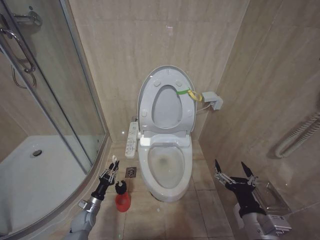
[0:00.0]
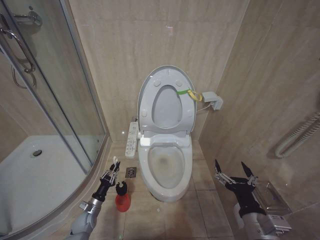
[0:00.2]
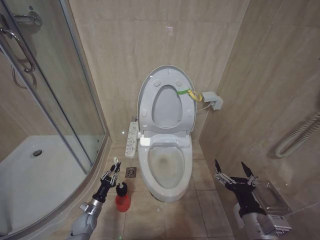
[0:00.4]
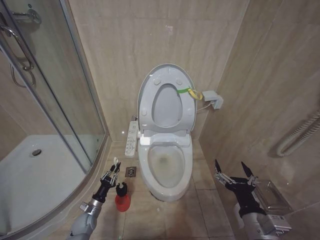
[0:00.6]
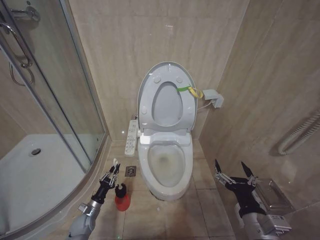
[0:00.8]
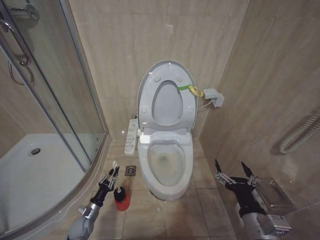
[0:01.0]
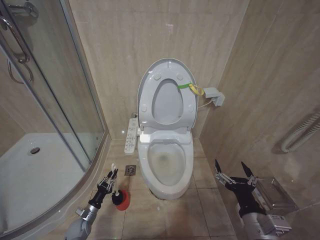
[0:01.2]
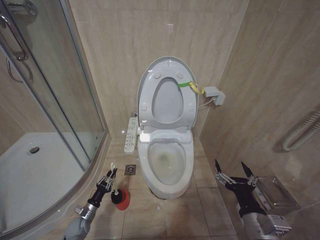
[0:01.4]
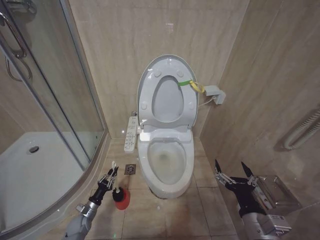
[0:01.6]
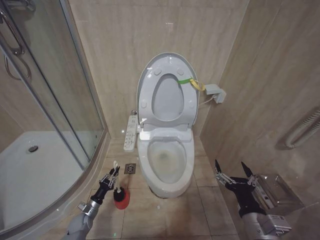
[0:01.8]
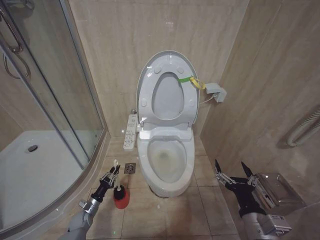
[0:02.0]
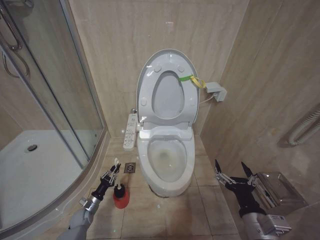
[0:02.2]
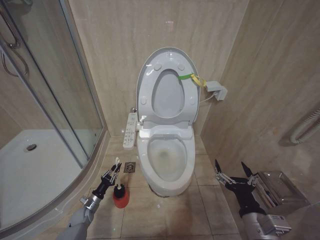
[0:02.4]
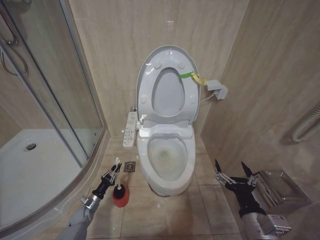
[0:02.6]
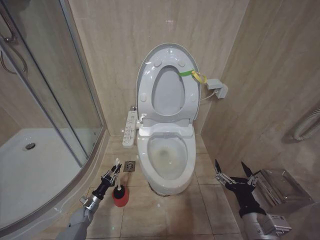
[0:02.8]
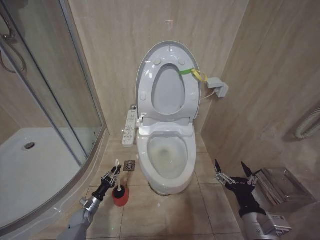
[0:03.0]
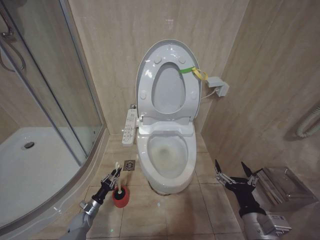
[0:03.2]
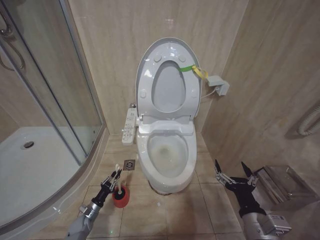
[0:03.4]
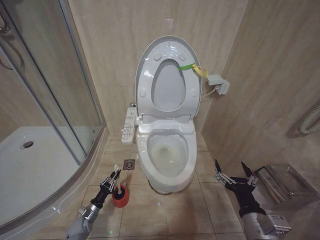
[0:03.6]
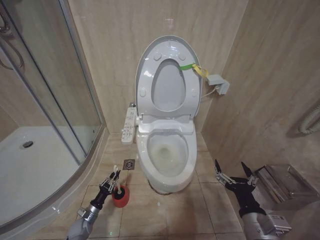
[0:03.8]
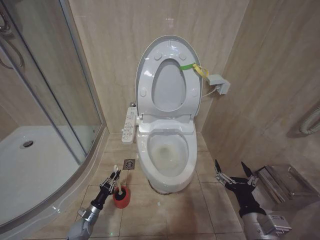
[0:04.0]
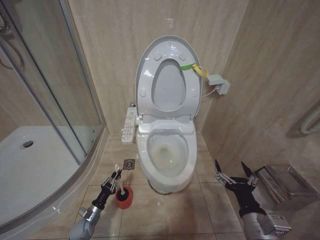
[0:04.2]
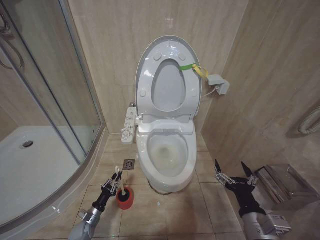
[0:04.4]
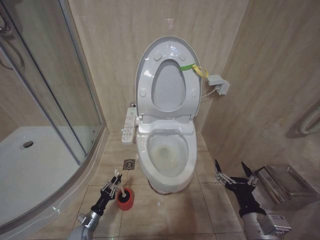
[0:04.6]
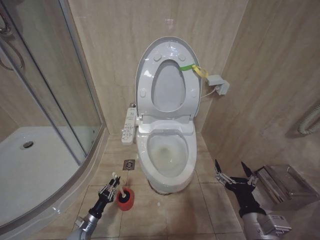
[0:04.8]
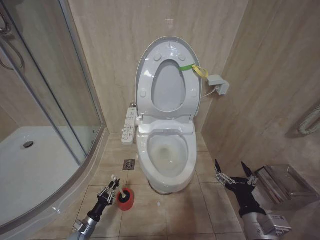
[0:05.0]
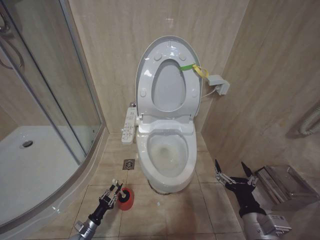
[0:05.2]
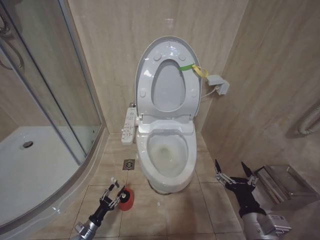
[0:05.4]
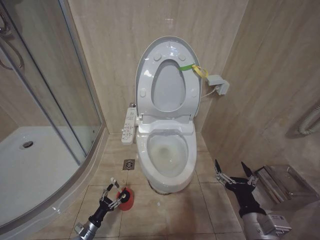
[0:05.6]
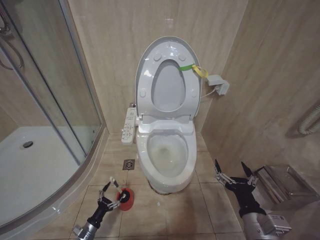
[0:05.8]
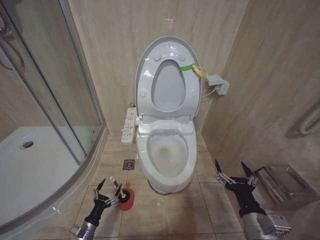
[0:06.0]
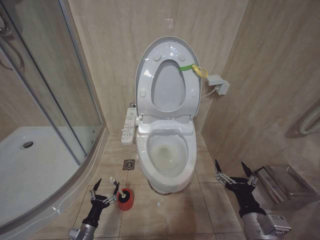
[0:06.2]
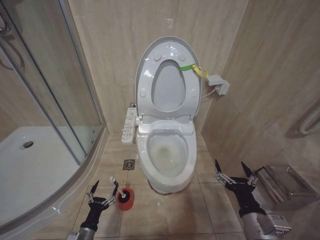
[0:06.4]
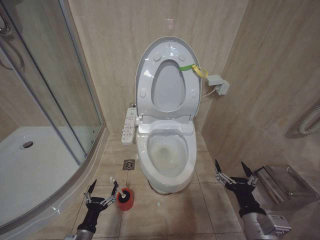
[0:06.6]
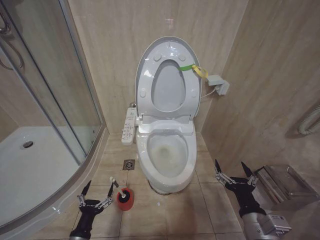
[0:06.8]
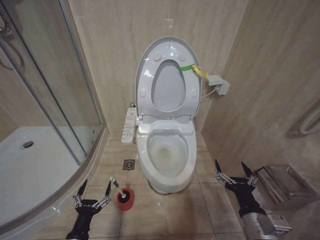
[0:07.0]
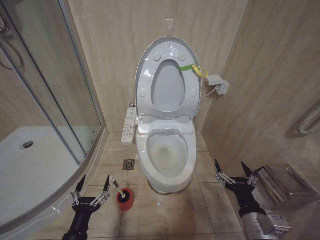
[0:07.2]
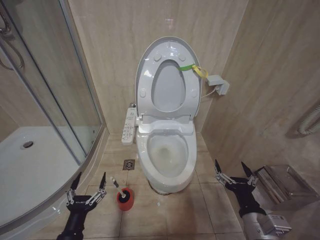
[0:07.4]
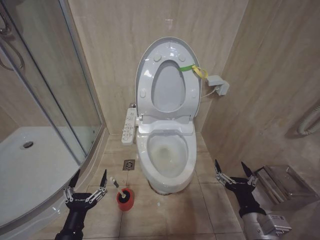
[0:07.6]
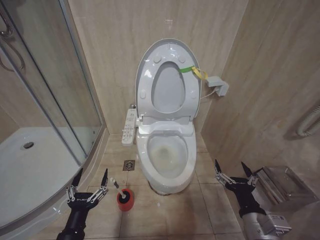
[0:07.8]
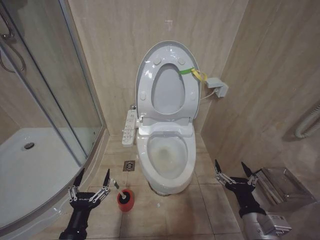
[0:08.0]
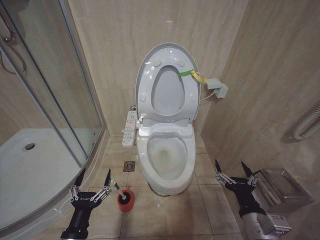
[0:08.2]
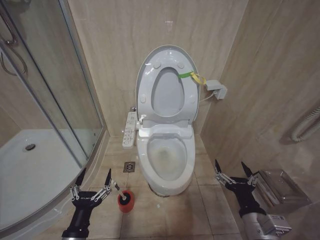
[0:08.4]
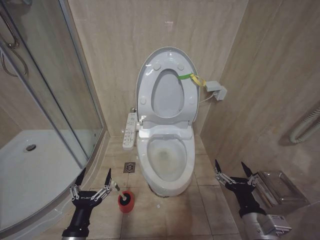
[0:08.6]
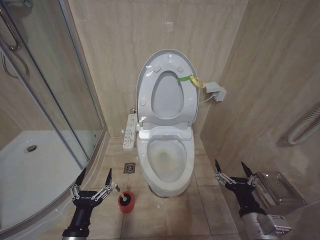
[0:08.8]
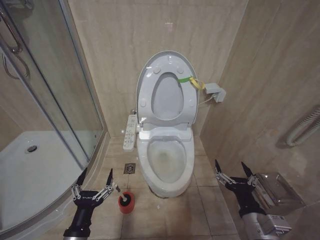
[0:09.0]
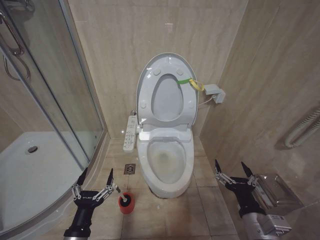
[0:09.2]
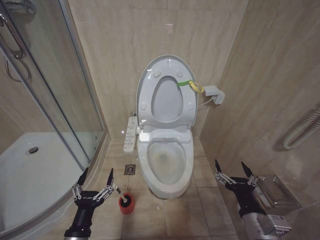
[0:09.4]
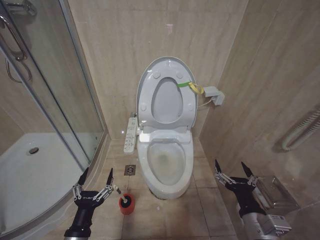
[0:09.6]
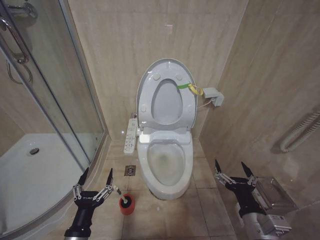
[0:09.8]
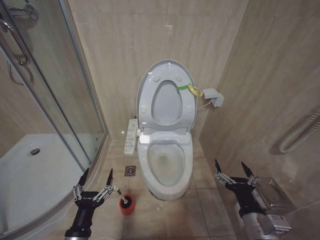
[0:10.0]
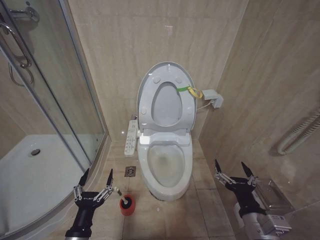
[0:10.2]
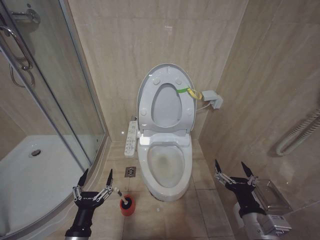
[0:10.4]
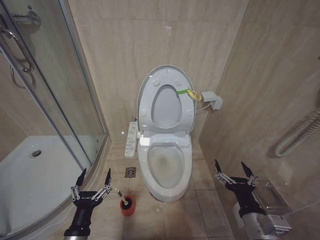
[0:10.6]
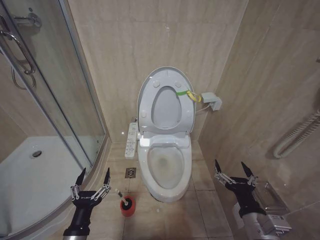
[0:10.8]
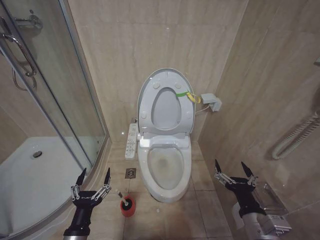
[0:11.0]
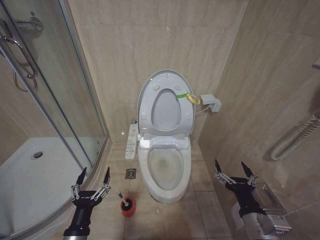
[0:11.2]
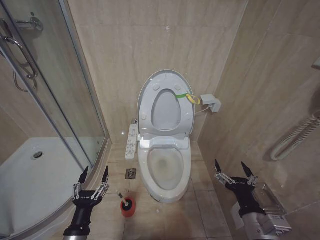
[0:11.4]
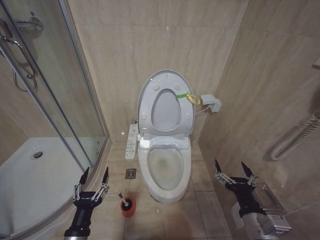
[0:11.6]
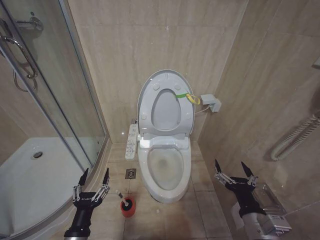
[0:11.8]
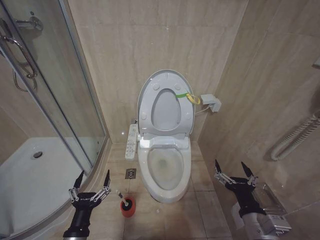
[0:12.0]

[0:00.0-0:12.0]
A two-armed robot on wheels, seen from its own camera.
Task of the whole recording: Open the toilet lid, clean the toilet bowl with a toilet brush, close the toilet lid, and flush.
0:00.0 to 0:03.0: The grippers stay close to where they were, moving slightly.
0:03.0 to 0:04.4: The left gripper travels backward by roughly 5 cm.
0:04.4 to 0:06.0: The left gripper travels backward by approximately 5 cm, and opens its fingers.
0:06.0 to 0:07.6: The left gripper goes about 25 cm upward and backward.
0:07.6 to 0:09.0: The grippers move only a little.
0:09.0 to 0:10.4: Both grippers stay about where they are.
0:10.4 to 0:12.0: Neither gripper changes place.

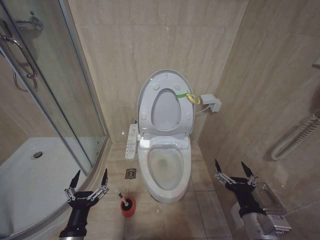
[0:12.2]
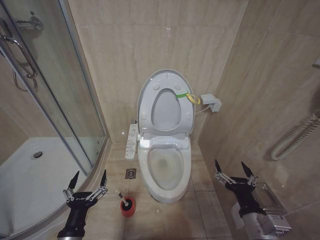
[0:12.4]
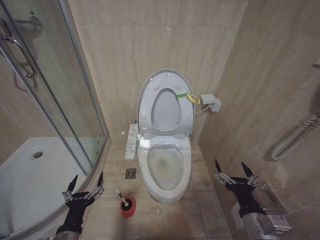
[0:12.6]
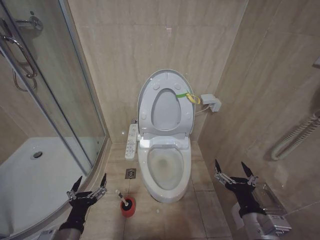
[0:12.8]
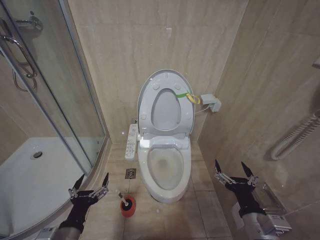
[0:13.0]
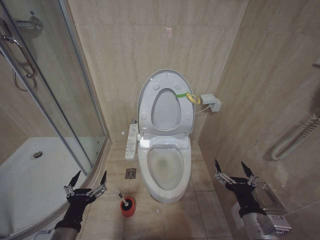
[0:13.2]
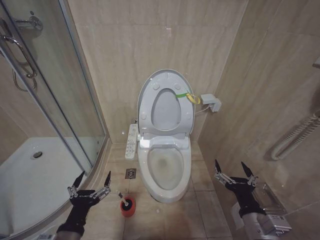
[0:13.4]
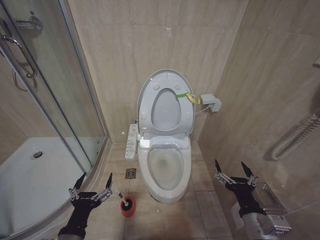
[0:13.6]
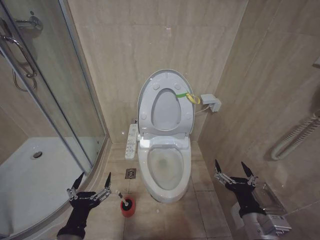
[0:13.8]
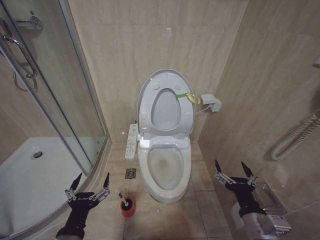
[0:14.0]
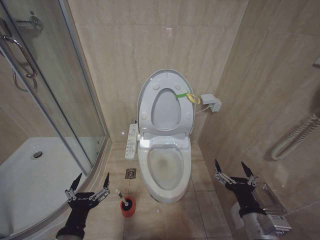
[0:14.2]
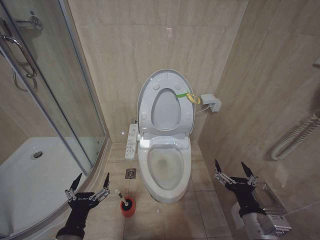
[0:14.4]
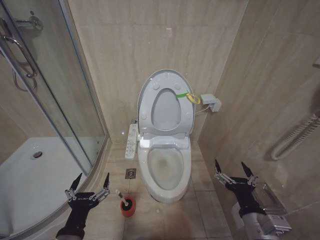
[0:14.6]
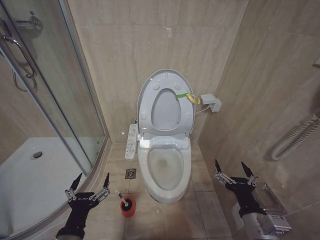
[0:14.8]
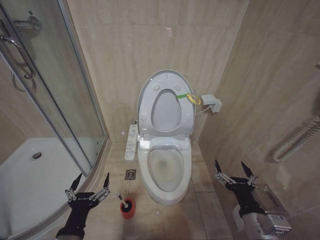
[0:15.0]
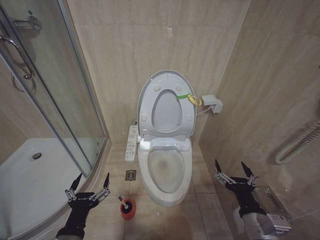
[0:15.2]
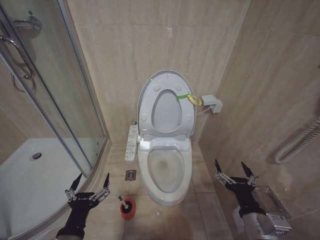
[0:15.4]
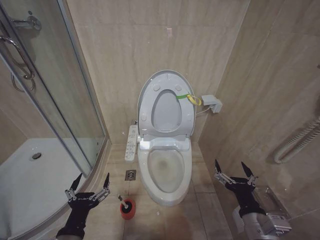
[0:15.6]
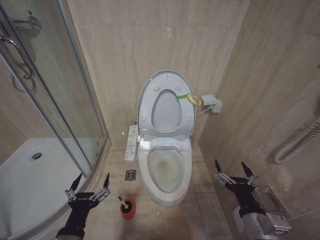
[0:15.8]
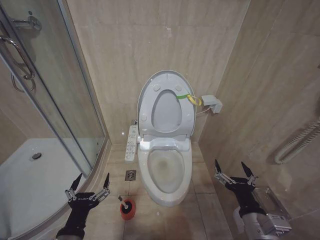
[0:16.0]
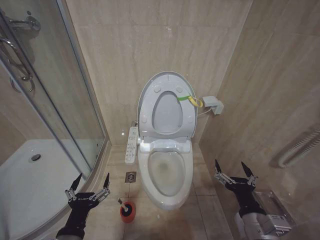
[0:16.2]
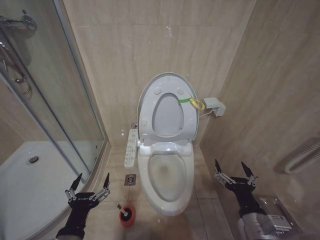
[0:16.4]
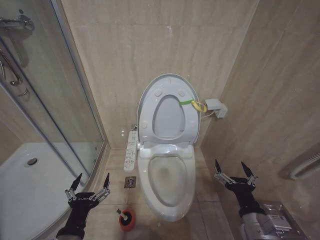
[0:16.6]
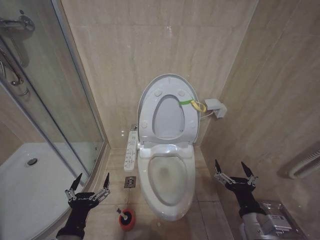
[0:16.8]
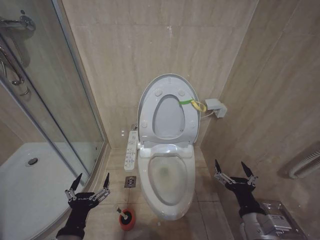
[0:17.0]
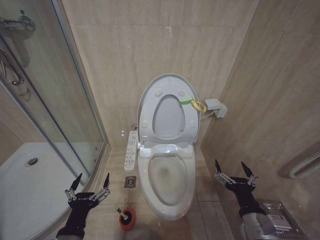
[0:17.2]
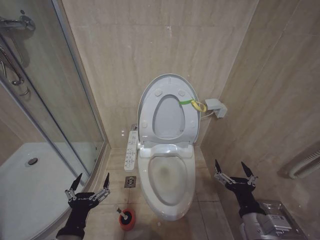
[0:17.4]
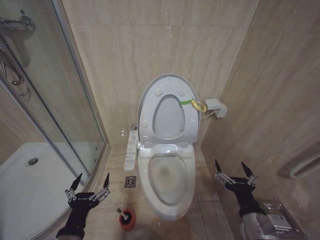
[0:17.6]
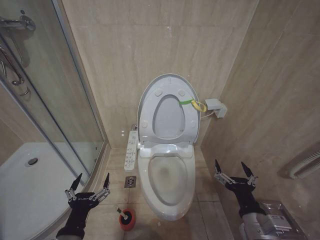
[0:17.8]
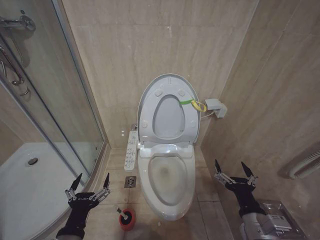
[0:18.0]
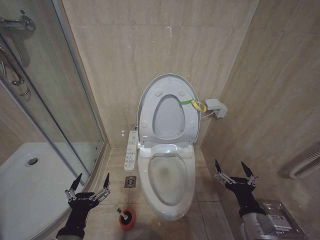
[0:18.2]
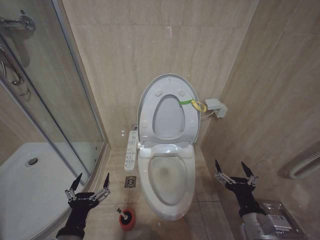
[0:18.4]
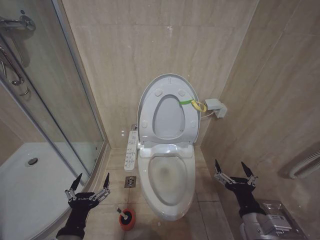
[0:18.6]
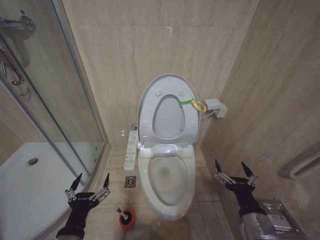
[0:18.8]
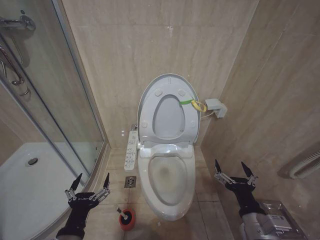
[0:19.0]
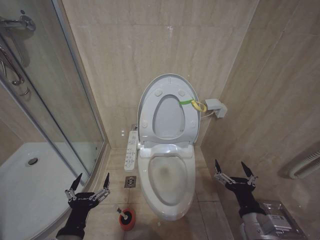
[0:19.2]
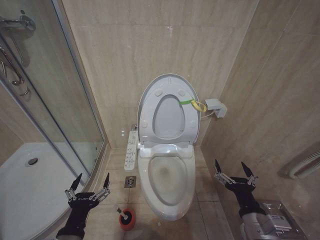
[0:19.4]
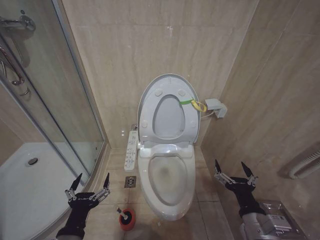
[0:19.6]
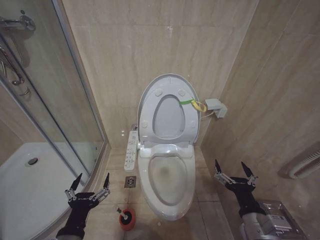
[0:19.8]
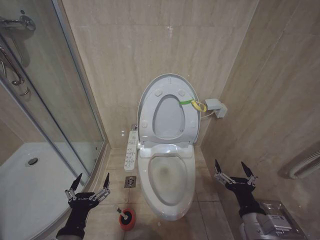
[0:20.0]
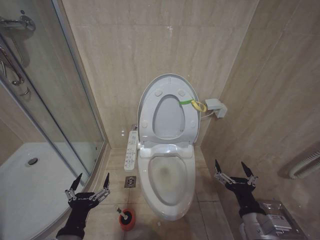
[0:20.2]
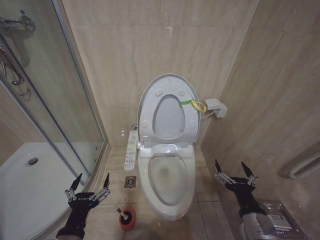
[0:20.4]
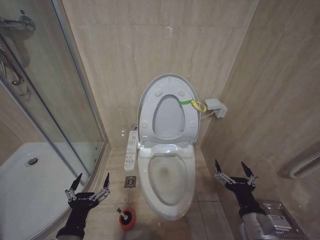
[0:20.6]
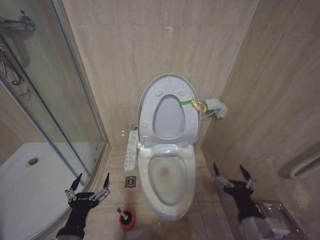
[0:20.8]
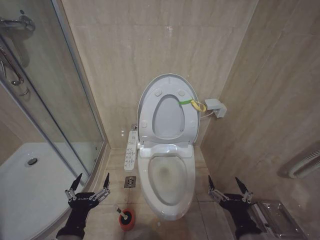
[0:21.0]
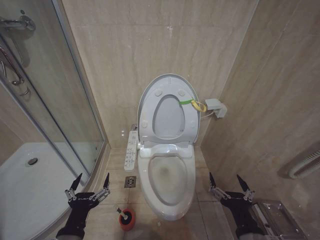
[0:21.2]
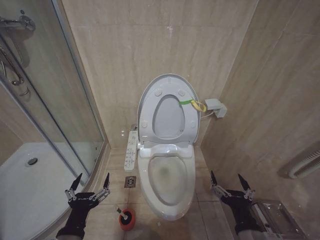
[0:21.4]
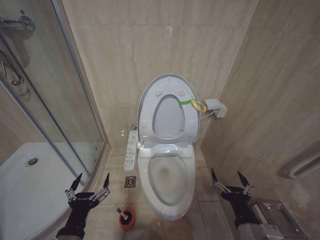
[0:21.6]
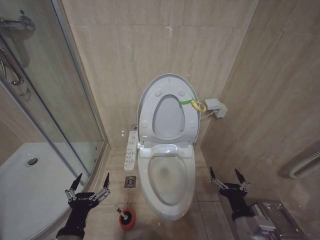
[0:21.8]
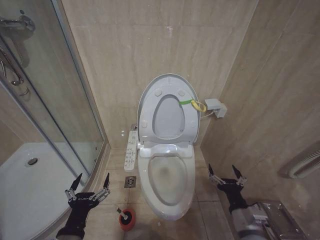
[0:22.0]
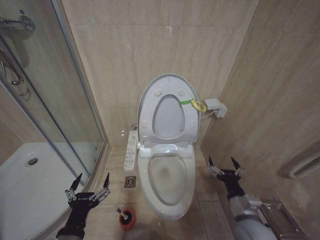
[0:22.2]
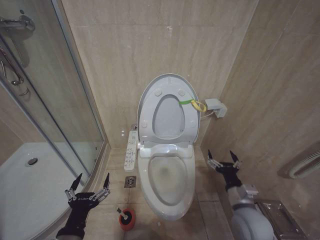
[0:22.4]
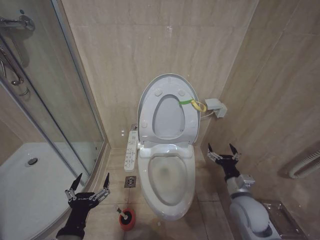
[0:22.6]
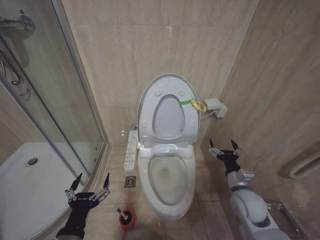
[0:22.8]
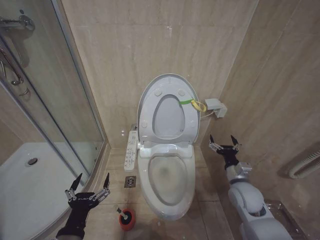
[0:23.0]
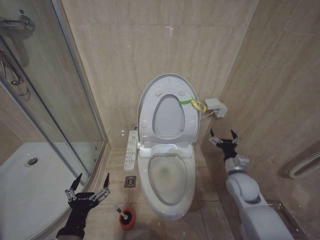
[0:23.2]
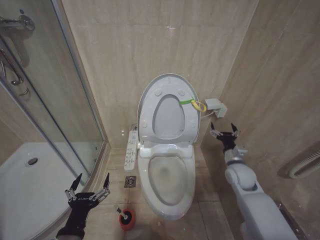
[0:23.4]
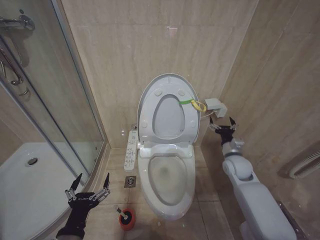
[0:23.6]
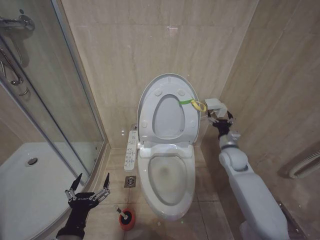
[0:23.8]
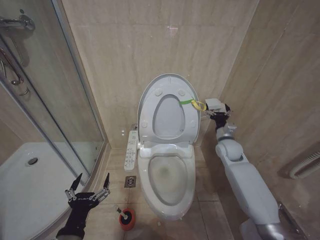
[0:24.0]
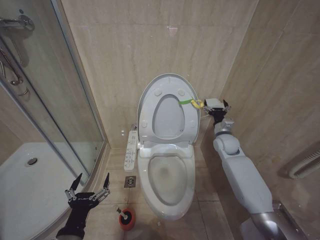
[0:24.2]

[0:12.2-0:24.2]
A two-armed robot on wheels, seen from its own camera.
Task of the whole recording: Open the toilet lid, clean the toilet bowl with a toilet brush, close the toilet lid, and flush.
0:12.2 to 0:13.8: The left gripper goes roughly 5 cm upward.
0:13.8 to 0:19.8: The two grippers keep their place.
0:19.8 to 0:21.2: The right gripper changes place by approximately 5 cm.
0:21.2 to 0:22.6: The right gripper travels forward by about 15 cm.
0:22.6 to 0:24.2: The right gripper moves forward, about 25 cm.
